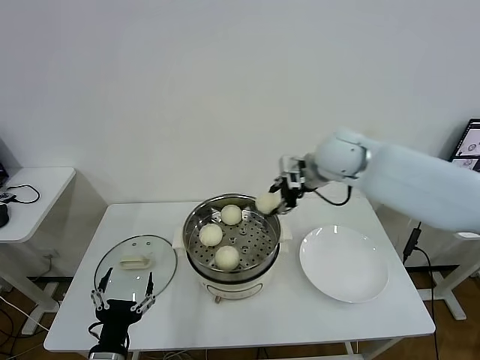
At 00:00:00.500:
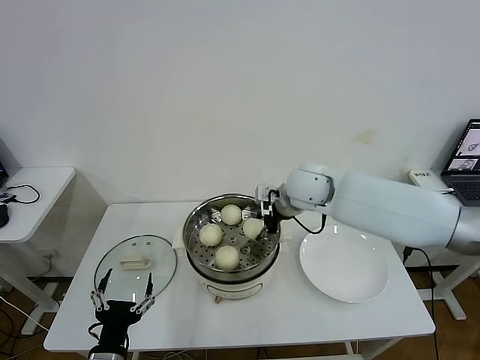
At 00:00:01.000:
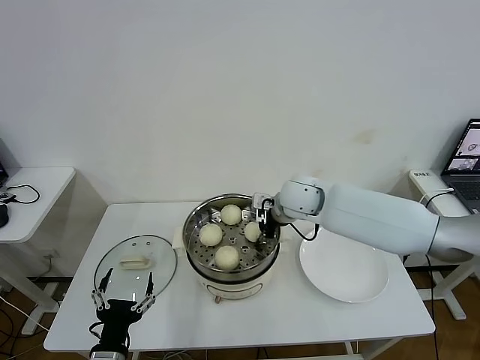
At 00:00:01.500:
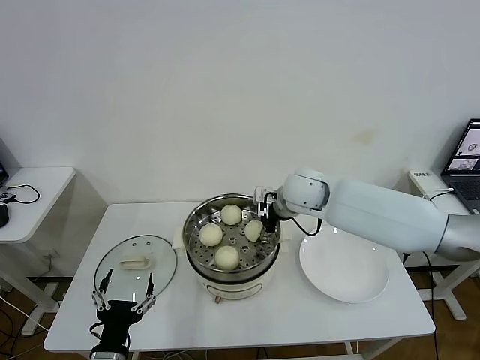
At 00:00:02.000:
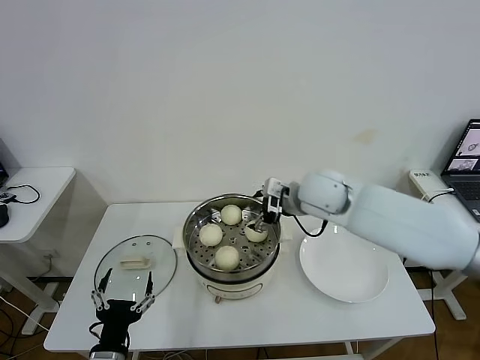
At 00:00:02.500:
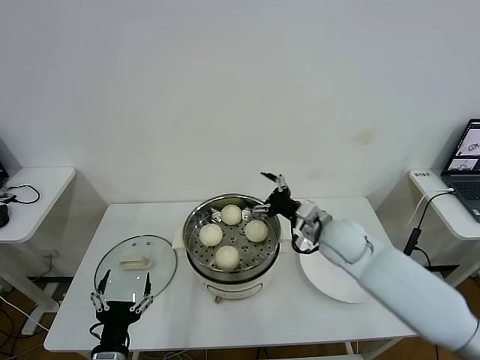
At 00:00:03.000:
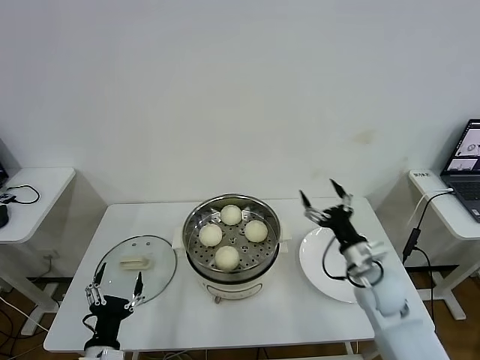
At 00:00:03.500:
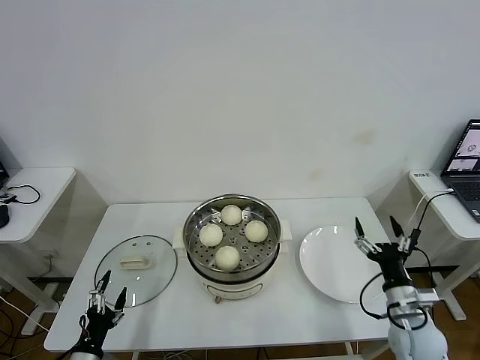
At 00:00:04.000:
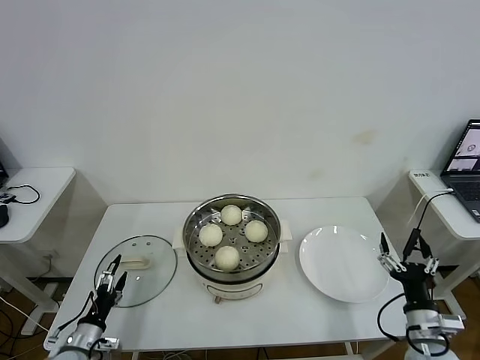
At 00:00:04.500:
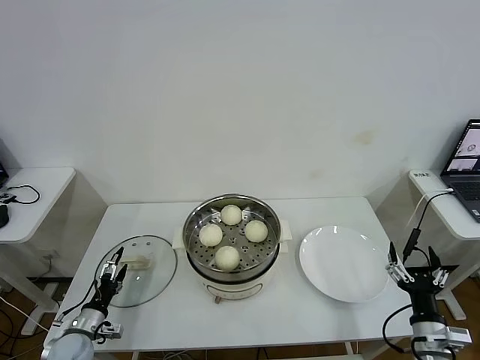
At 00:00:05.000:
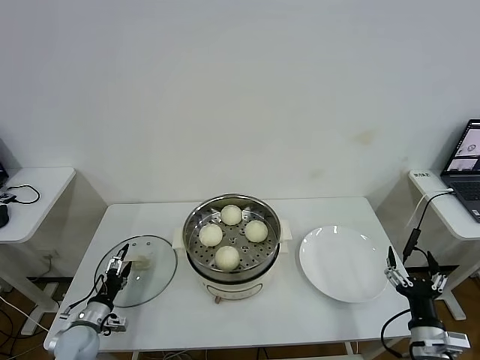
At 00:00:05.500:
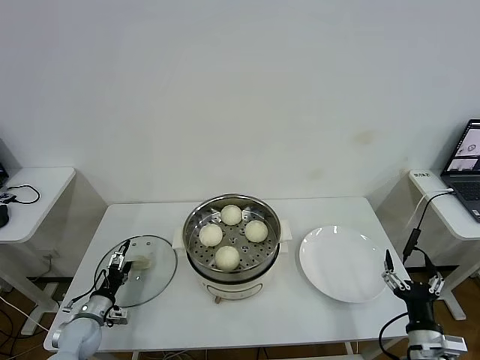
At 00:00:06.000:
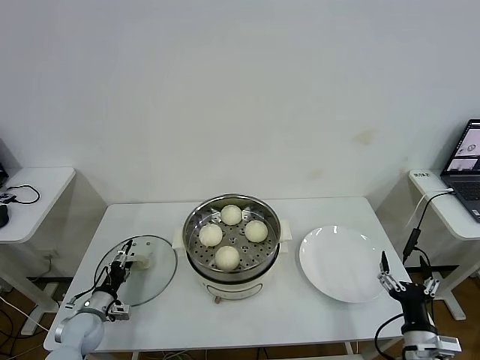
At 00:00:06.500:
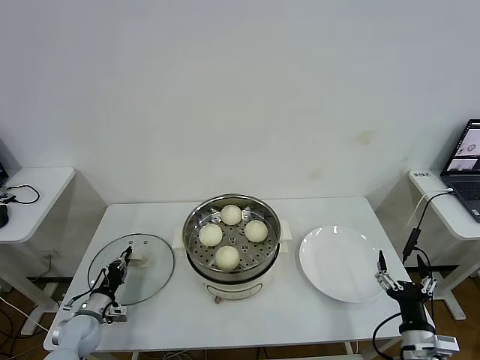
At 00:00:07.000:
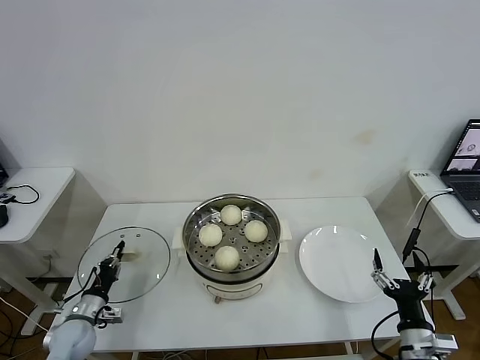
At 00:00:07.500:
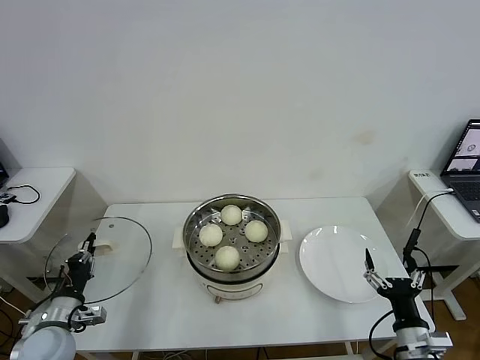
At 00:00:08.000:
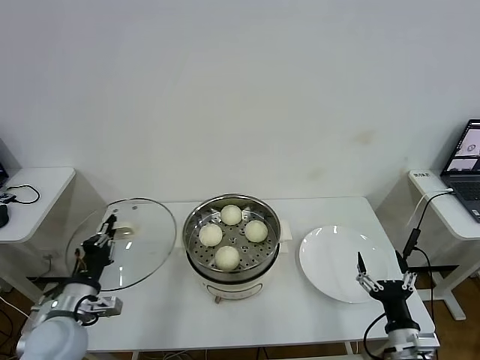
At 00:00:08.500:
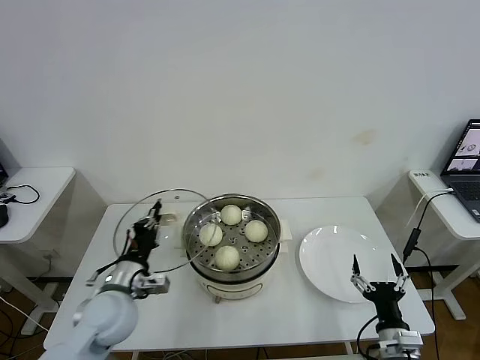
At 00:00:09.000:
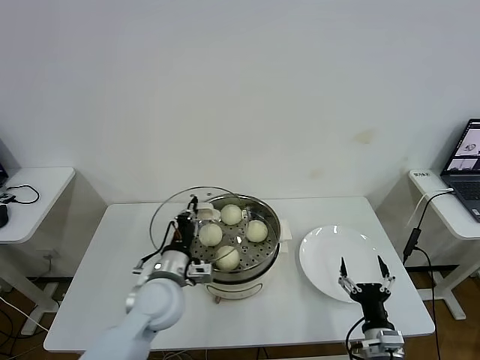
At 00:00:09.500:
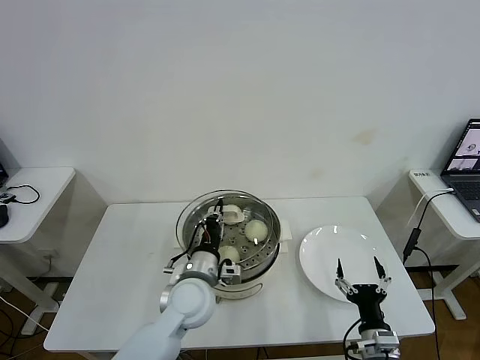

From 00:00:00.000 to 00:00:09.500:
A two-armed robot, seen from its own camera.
Task of the whole recording: take steamed baozi put them in steamer then cover it.
Step, from 00:00:01.500 to 00:00:06.500: Grasp the pot lid with left gripper.
From 00:00:00.000 to 00:00:02.000: The right gripper is displaced downward by about 5 cm, and opens up.
From 00:00:02.000 to 00:00:04.000: The left gripper goes about 20 cm to the left, downward and forward. Meanwhile the right gripper is displaced backward, downward and to the right by some 40 cm.
From 00:00:04.000 to 00:00:05.500: The left gripper goes some 10 cm forward.
From 00:00:05.500 to 00:00:07.500: The left gripper goes some 10 cm upward and backward, and closes up.
From 00:00:07.500 to 00:00:09.500: The left gripper shifts roughly 30 cm to the right. The right gripper is displaced to the left by about 5 cm.

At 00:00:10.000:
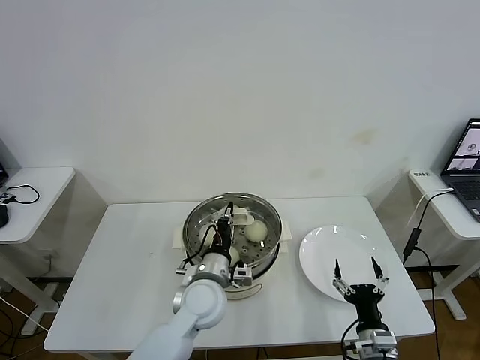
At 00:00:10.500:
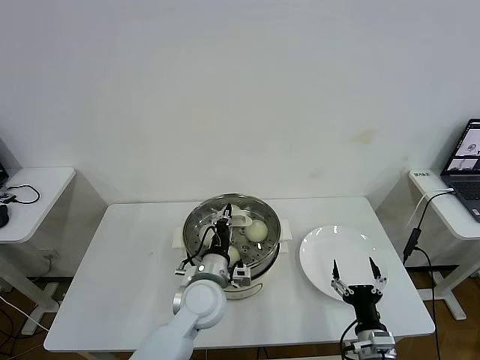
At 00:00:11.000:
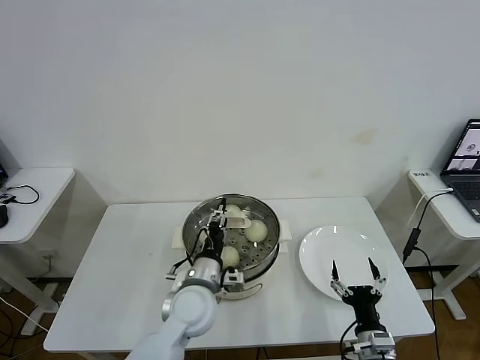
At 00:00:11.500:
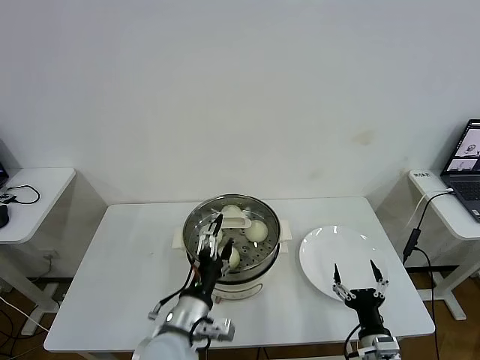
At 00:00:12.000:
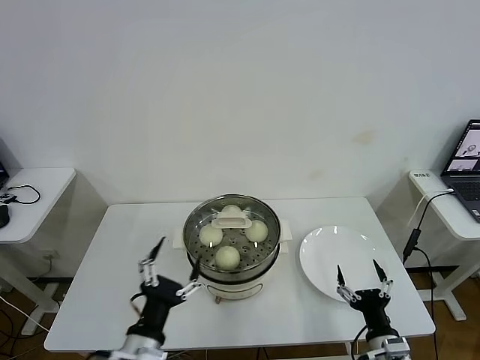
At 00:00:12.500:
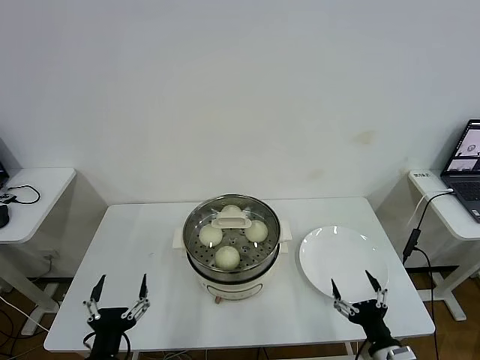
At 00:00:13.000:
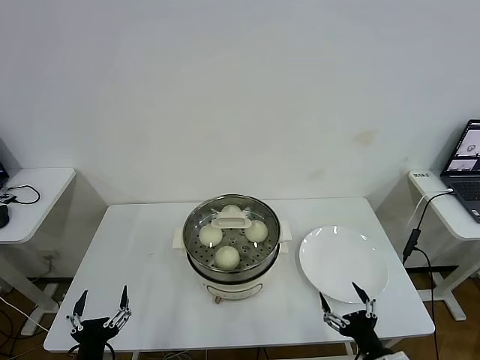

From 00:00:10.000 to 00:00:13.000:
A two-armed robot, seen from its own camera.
Task of the whole recording: take steamed baozi put them in steamer then cover it.
From 00:00:10.000 to 00:00:11.500: The left gripper is displaced backward by some 10 cm, and opens up.
From 00:00:11.500 to 00:00:13.000: The right gripper ends up about 5 cm from where it was. The left gripper moves to the left, backward and downward, some 20 cm.
